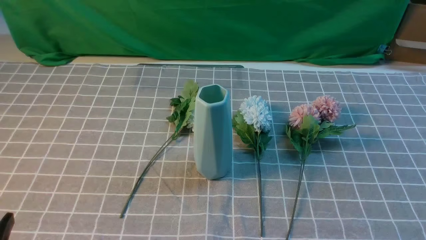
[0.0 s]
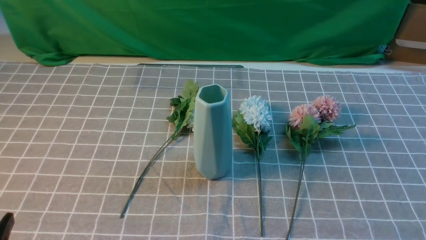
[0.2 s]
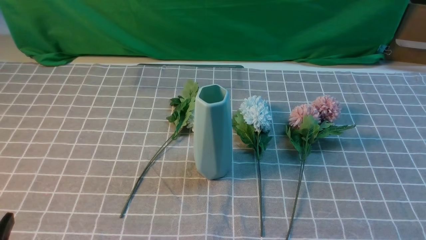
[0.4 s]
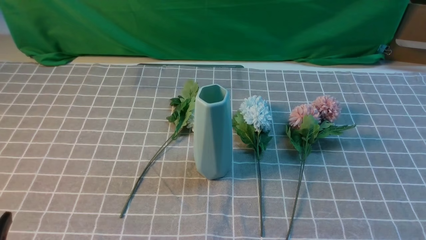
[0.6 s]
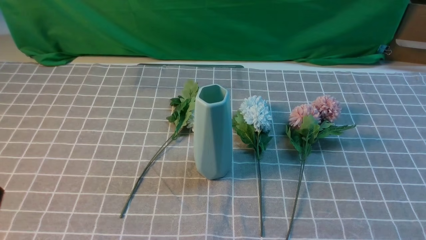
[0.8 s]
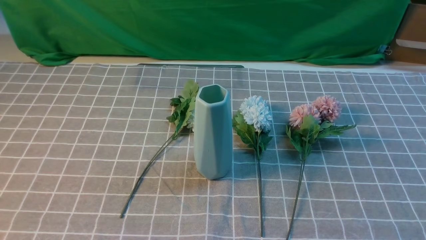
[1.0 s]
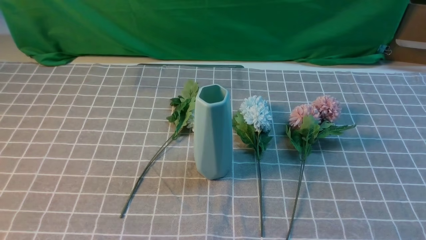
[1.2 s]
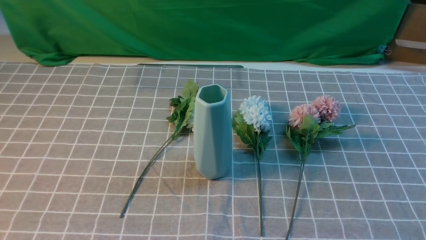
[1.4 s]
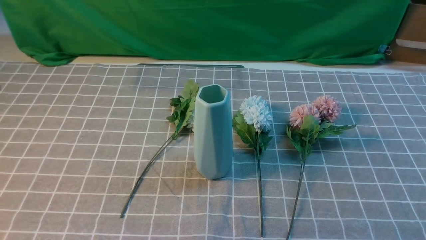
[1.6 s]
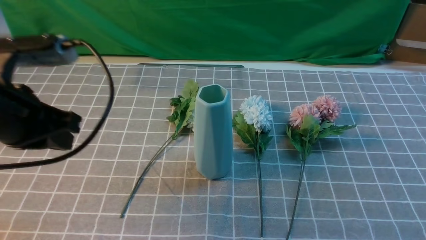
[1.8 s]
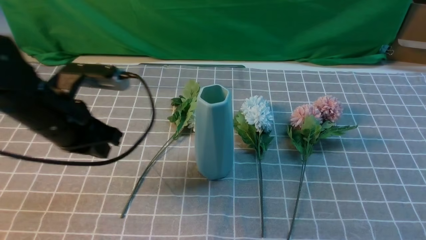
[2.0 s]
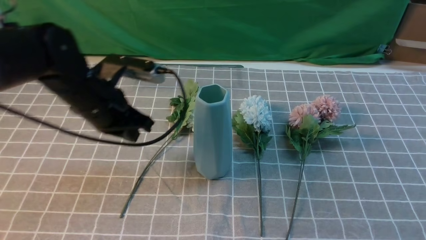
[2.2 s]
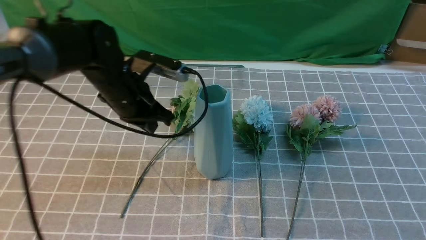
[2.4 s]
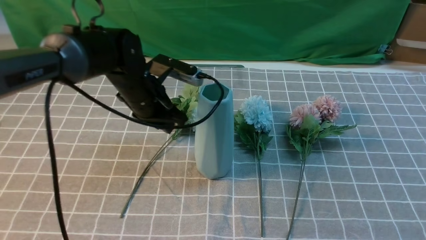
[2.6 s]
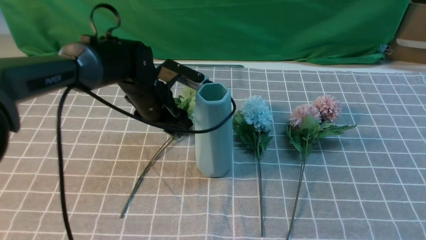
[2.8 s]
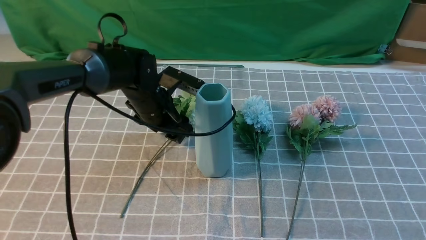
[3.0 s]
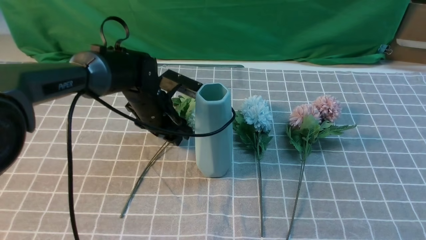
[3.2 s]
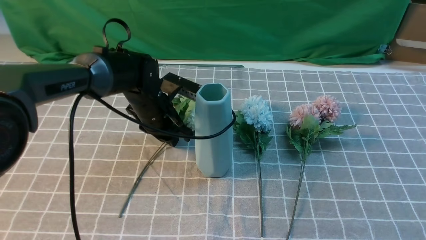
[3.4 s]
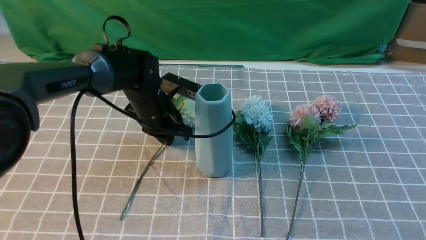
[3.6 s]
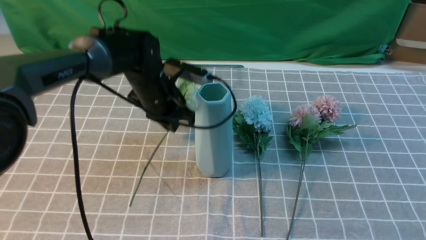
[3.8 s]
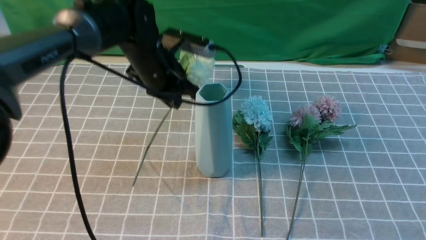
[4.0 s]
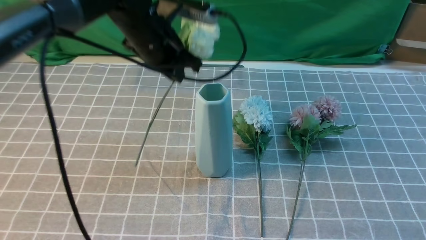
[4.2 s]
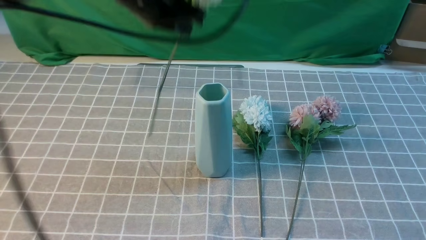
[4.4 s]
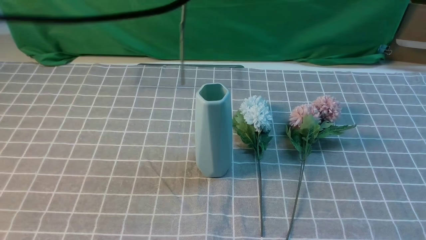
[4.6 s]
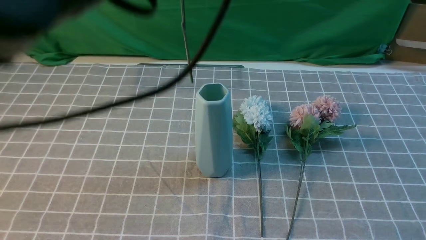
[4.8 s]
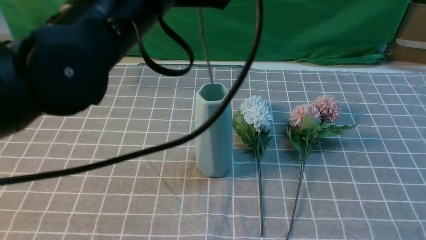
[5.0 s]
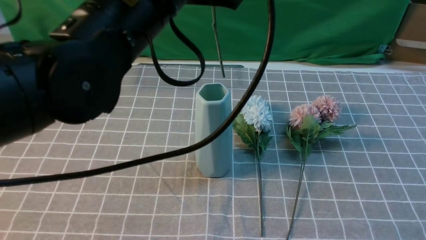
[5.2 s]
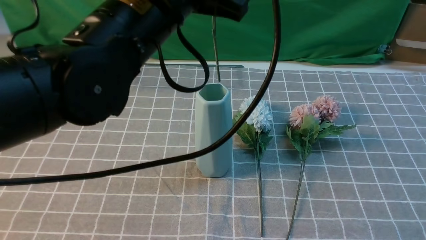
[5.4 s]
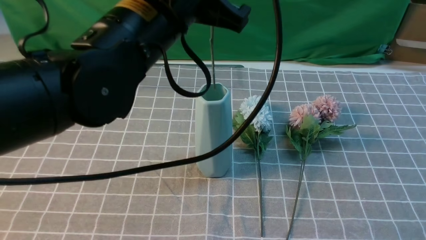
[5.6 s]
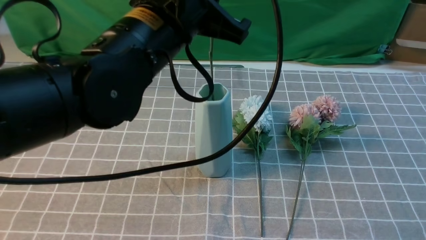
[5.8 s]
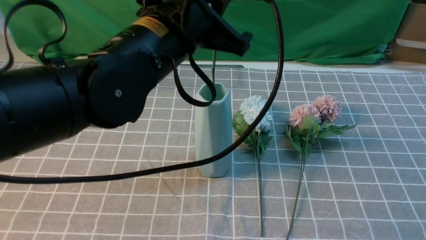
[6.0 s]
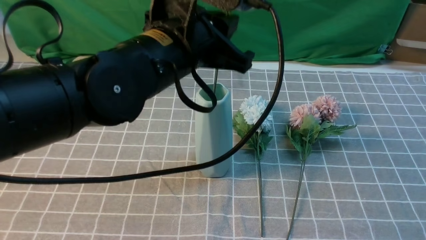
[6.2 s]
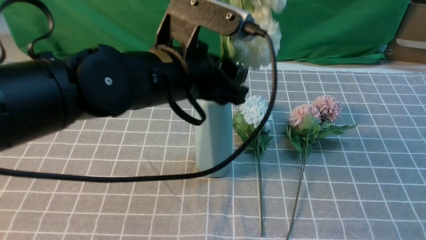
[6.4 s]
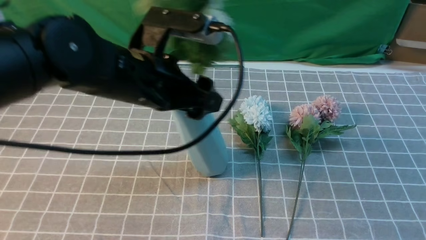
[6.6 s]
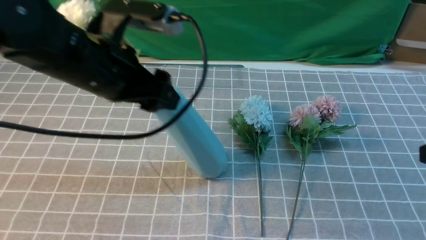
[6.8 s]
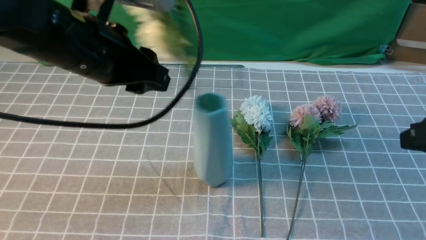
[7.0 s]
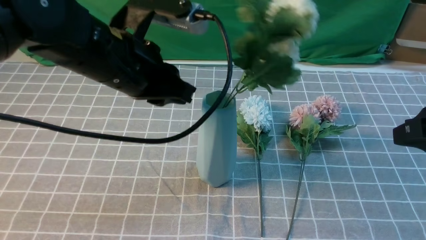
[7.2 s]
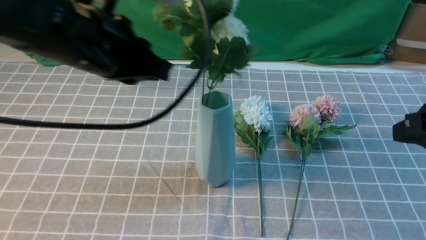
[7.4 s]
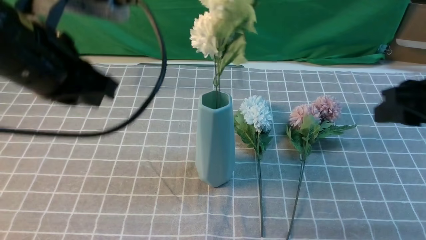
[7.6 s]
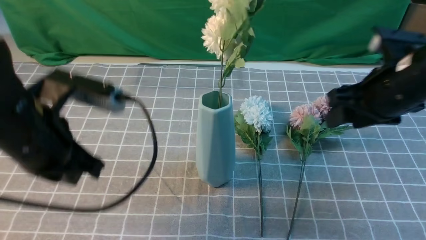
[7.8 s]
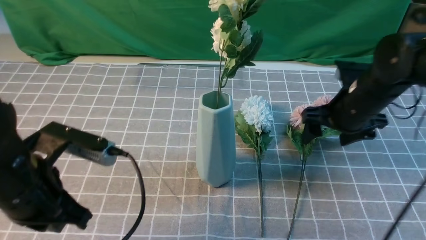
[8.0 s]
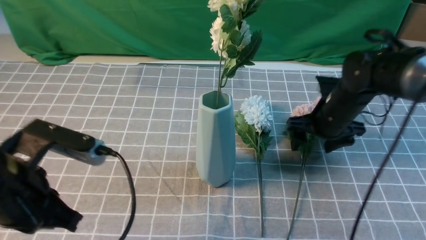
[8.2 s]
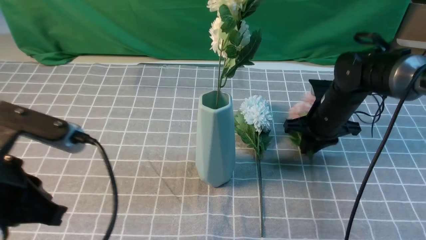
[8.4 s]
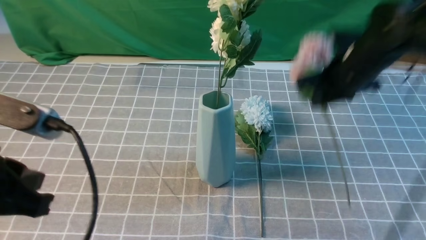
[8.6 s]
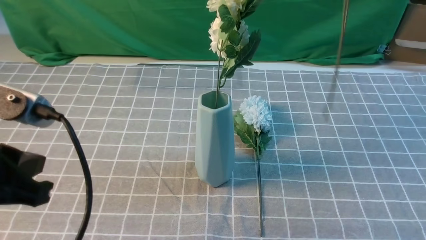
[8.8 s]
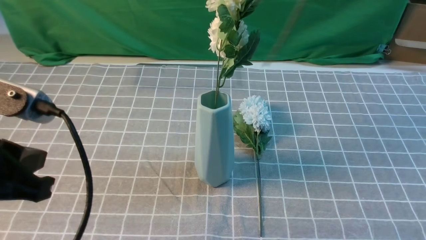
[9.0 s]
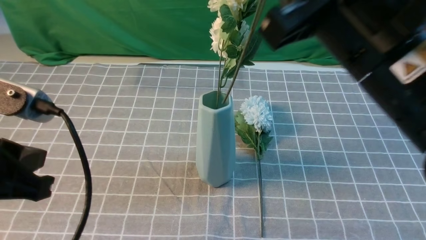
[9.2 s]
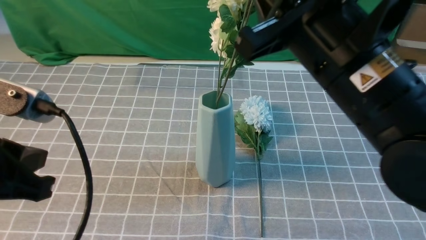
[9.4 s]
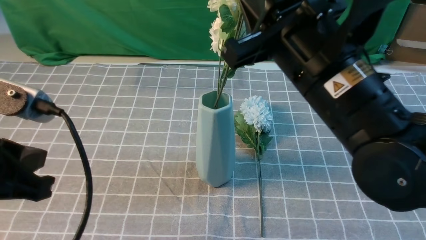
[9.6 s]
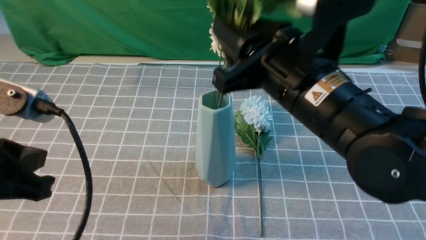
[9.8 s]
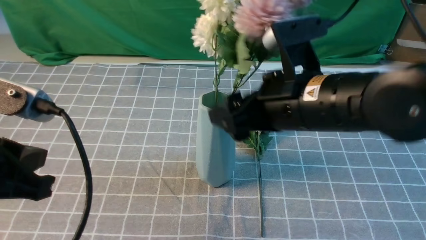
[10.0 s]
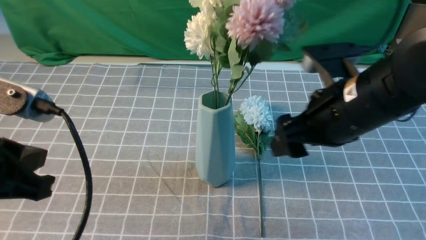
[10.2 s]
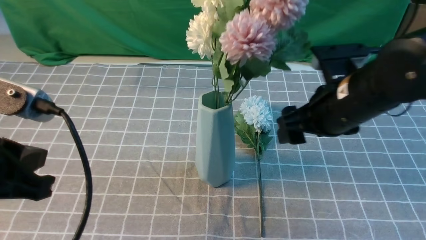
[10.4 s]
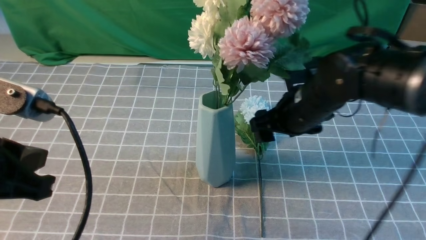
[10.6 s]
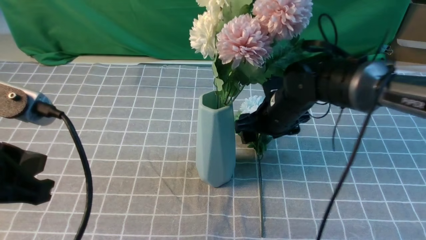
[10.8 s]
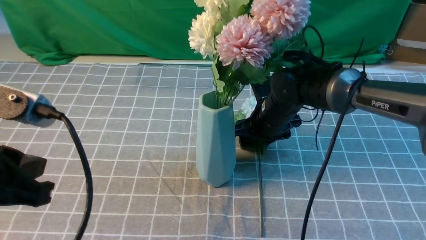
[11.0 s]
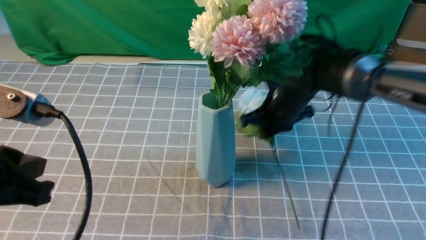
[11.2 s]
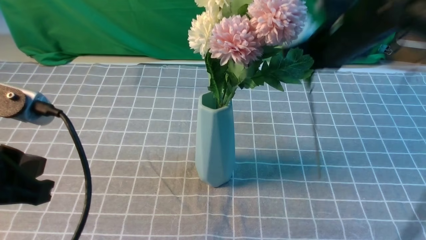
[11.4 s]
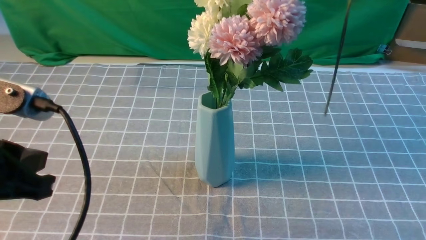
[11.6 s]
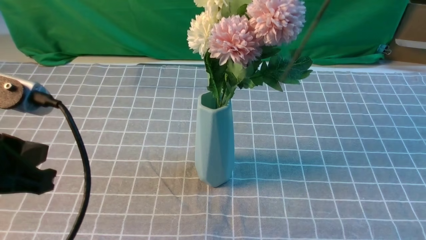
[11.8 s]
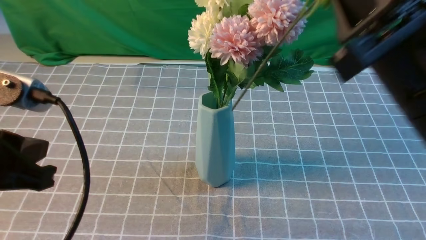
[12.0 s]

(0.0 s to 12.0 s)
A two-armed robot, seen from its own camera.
Task of the whole recording: insert the flowers into the vase on the table with the grey tablecloth.
Step, 0.0 s - 3.6 s: use the left arm to grab a bunch of fresh flowers.
Step, 3.8 s - 7.4 s: use the left arm to insert the flowers into the vase.
Step, 7.6 s - 8.4 s: use the right arm to grab a bunch of fresh flowers.
Step, 8.6 s - 10.4 s: use the right arm to insert the flowers into the vase.
Step, 10.6 s - 11.0 s: use the right arm to grab a bunch of fresh flowers.
1.6 s - 3.0 s: The right gripper is displaced upward and forward by about 10 cm, while the left gripper goes roughly 35 cm forward, downward and to the right, and opens up.
3.0 s - 4.4 s: The left gripper shifts roughly 25 cm upward, and closes its fingers.
4.4 s - 6.0 s: The left gripper travels backward and downward by some 10 cm.
6.0 s - 7.6 s: The right gripper travels forward by about 15 cm, while the left gripper goes roughly 10 cm to the left, and opens, then closes again.
7.6 s - 9.0 s: The right gripper travels upward and to the left by about 15 cm, and closes up. Meanwhile the left gripper heads backward, covering some 10 cm.
9.0 s - 10.4 s: The right gripper moves downward and forward, roughly 20 cm, and opens.
10.4 s - 12.0 s: The right gripper swings up and down, roughly 25 cm each way, with 2 reversals, and closes.

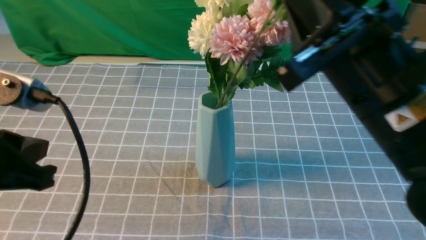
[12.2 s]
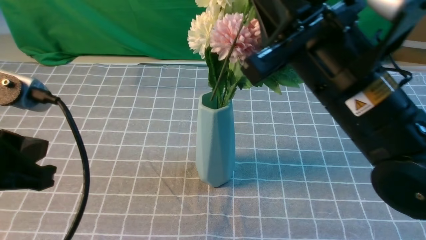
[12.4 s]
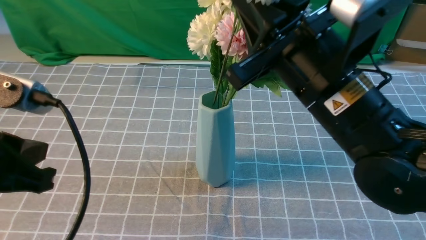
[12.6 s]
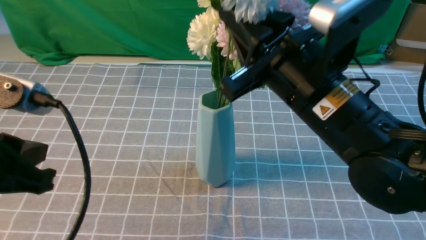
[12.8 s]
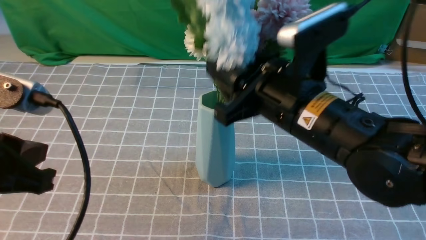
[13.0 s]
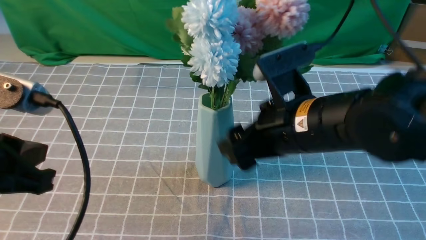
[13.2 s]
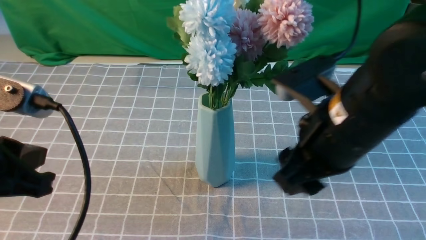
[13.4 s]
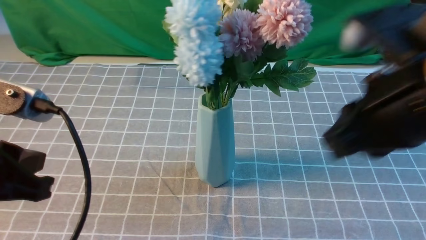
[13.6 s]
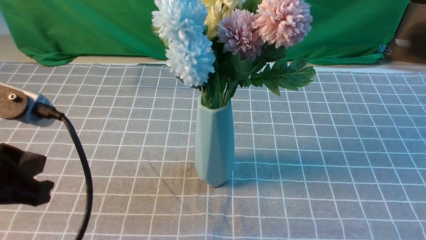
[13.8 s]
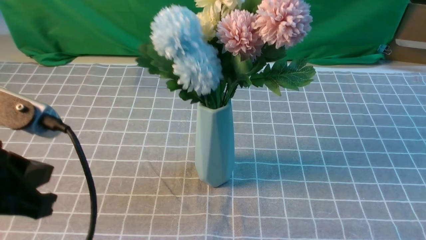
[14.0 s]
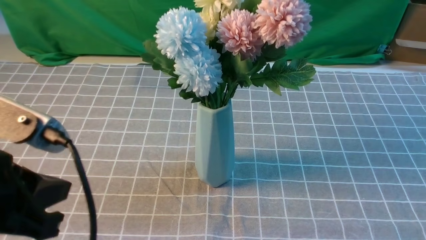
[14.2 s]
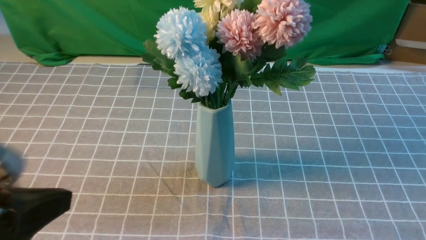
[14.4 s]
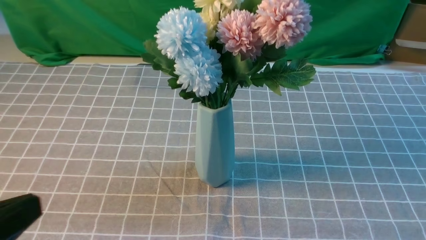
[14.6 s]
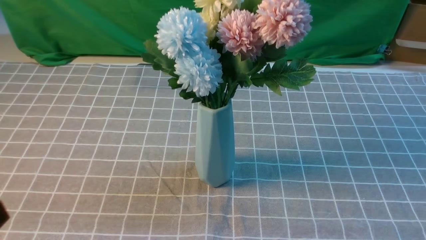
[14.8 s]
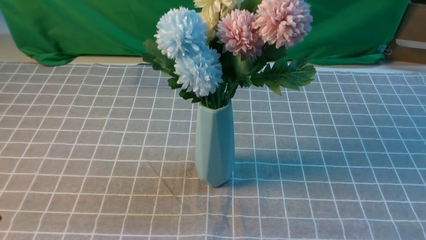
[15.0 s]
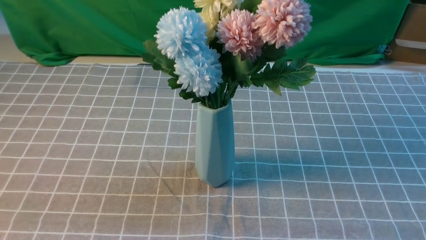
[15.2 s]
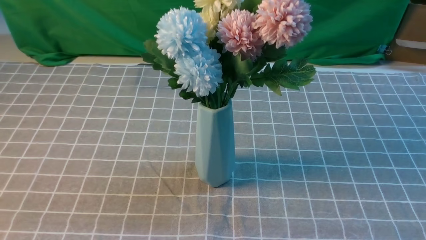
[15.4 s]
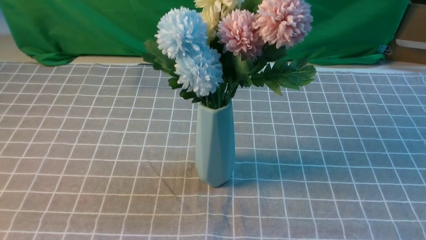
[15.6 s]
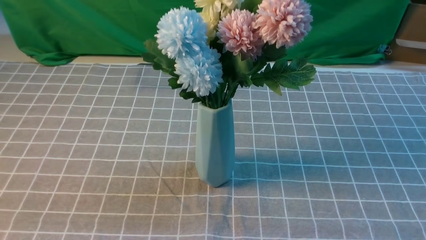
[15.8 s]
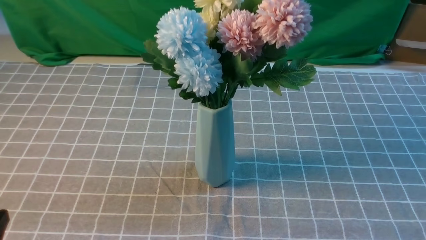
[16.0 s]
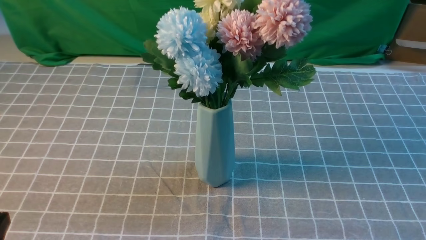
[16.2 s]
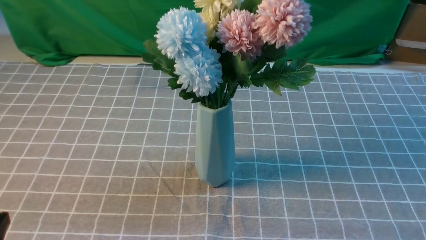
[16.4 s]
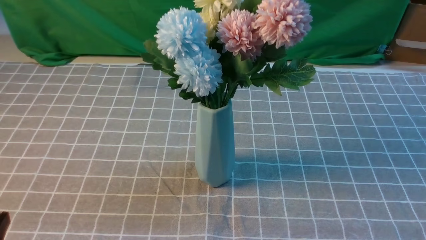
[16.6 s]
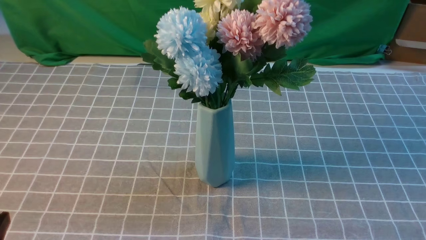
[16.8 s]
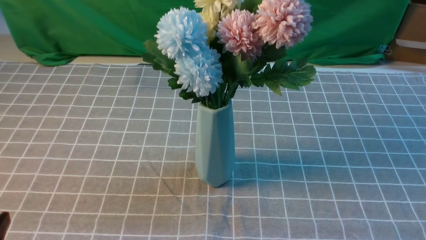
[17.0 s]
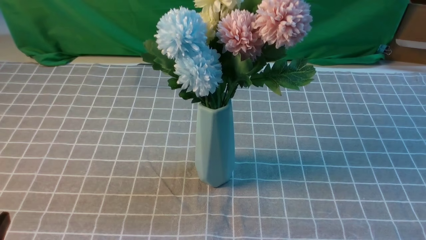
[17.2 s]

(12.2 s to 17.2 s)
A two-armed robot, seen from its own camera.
Task of the whole recording: insert the flowers into the vase on the table with the grey tablecloth.
12.2 s - 13.8 s: The right gripper goes some 15 cm backward, to the right and upward, and opens and closes again.
13.8 s - 15.6 s: The left gripper moves backward, approximately 10 cm. The right gripper moves downward, backward and to the right, some 15 cm.
